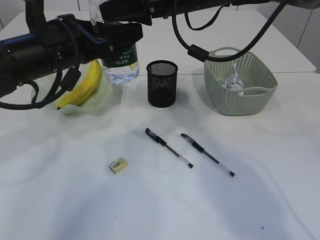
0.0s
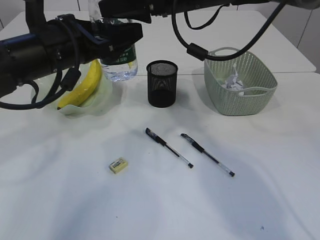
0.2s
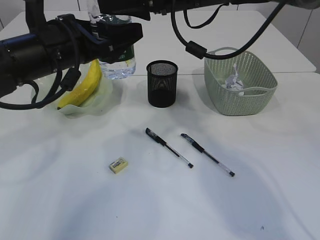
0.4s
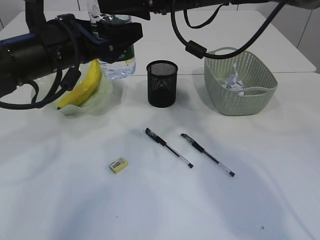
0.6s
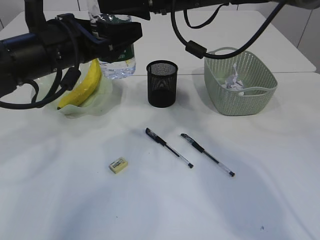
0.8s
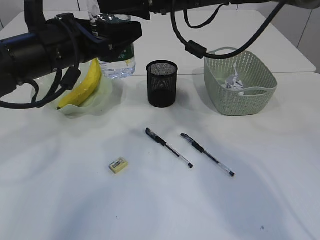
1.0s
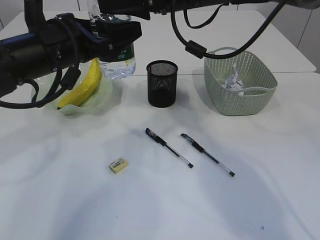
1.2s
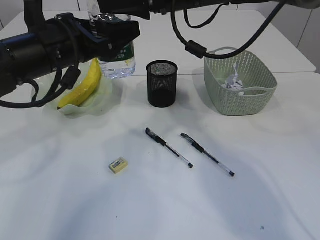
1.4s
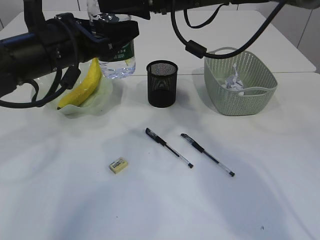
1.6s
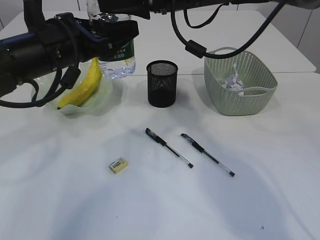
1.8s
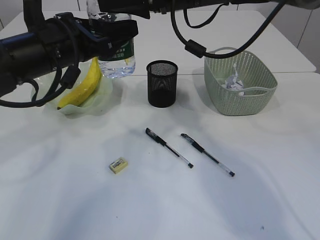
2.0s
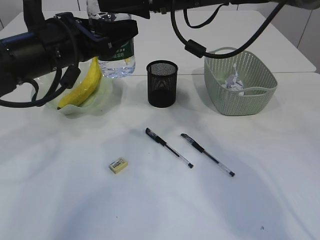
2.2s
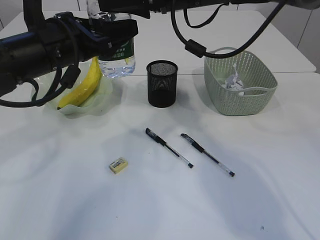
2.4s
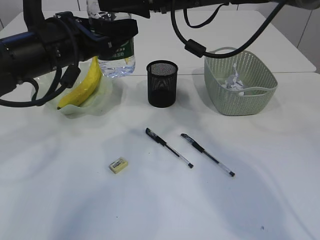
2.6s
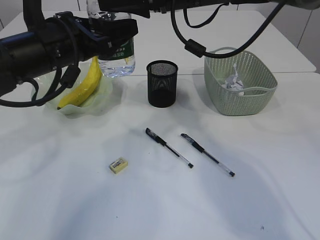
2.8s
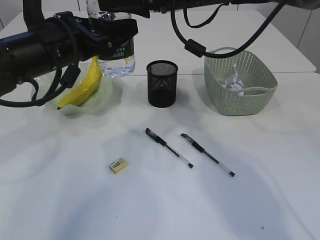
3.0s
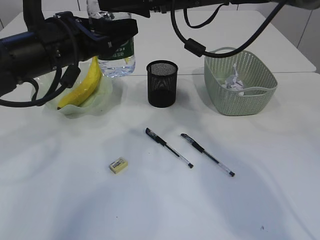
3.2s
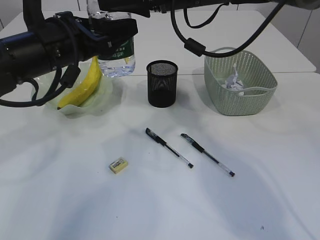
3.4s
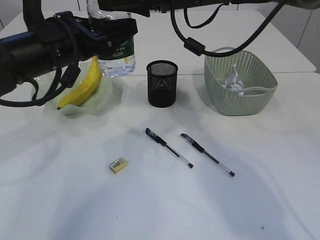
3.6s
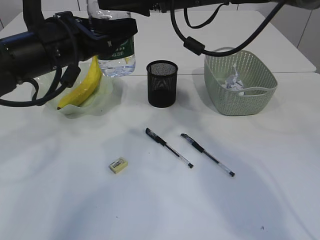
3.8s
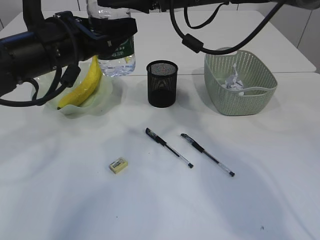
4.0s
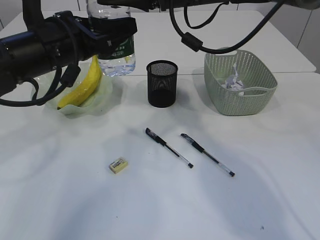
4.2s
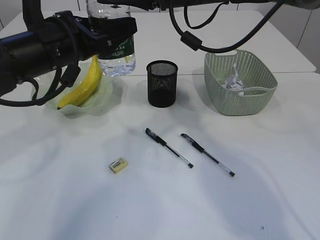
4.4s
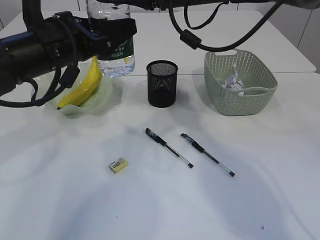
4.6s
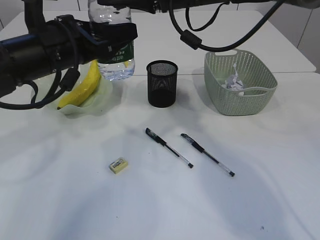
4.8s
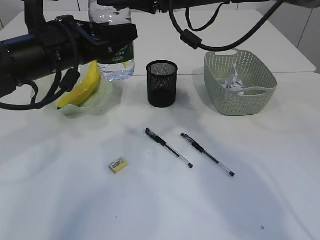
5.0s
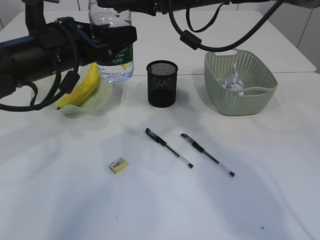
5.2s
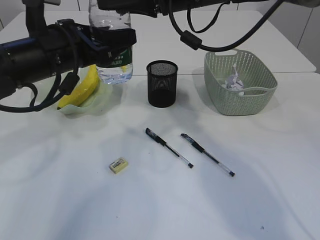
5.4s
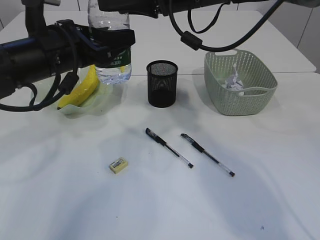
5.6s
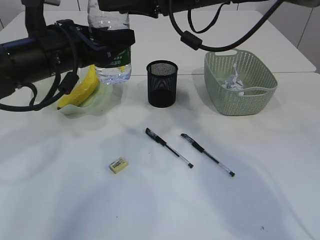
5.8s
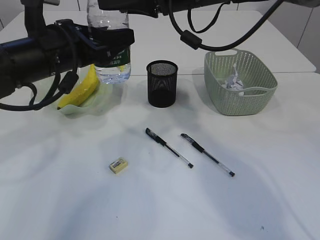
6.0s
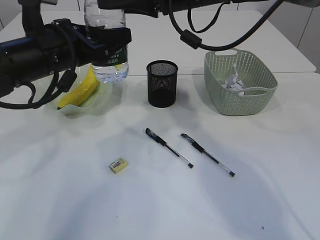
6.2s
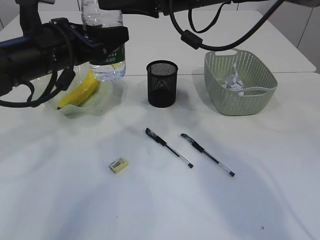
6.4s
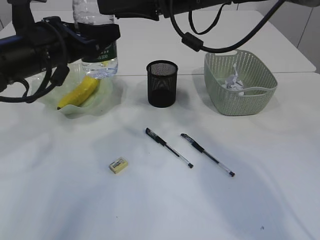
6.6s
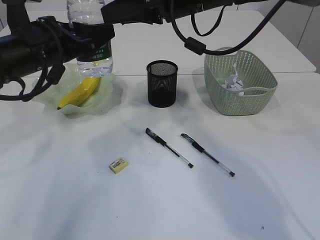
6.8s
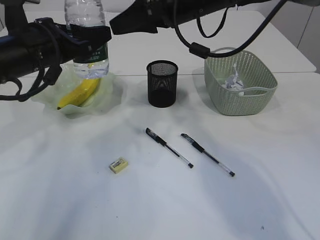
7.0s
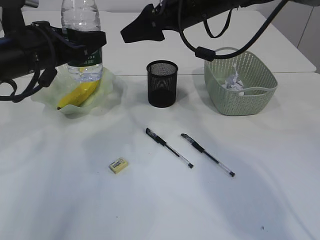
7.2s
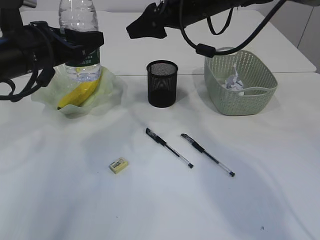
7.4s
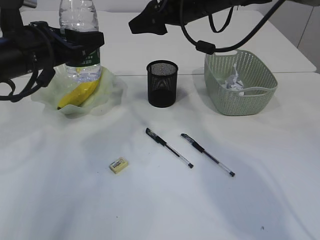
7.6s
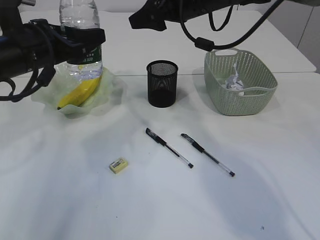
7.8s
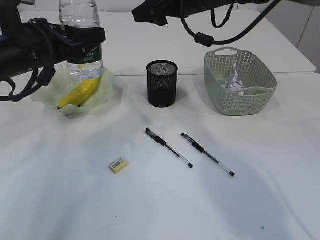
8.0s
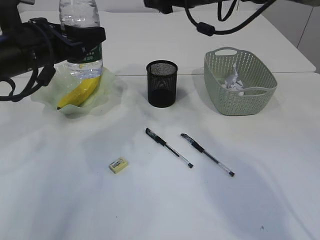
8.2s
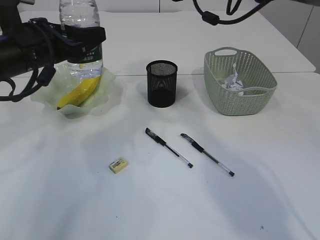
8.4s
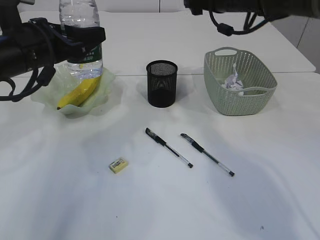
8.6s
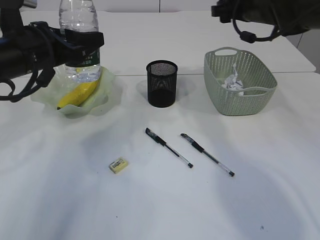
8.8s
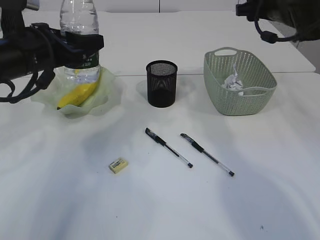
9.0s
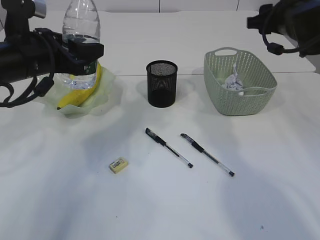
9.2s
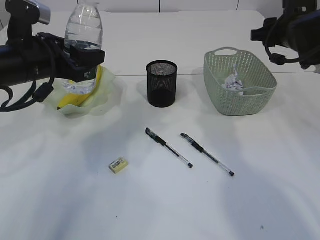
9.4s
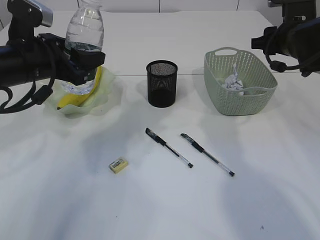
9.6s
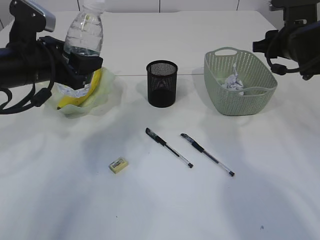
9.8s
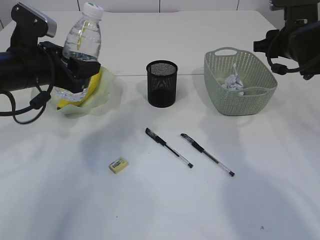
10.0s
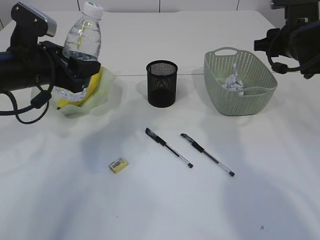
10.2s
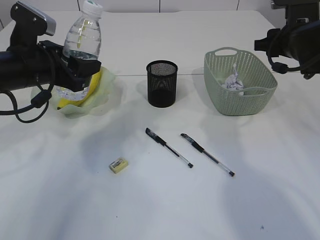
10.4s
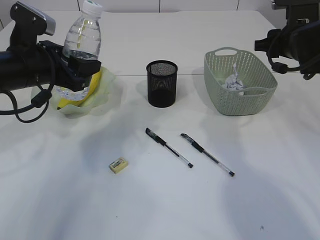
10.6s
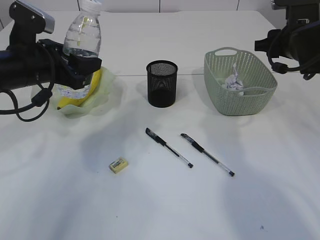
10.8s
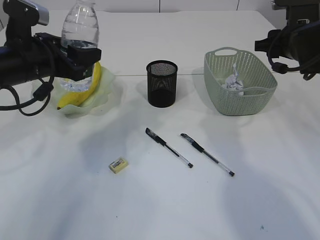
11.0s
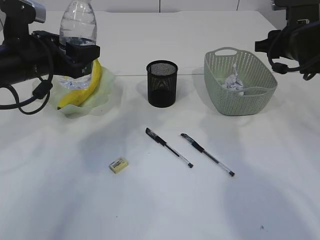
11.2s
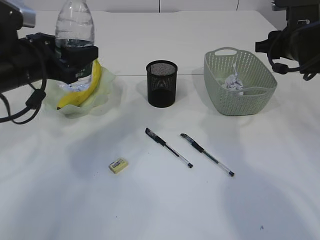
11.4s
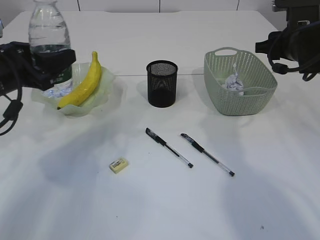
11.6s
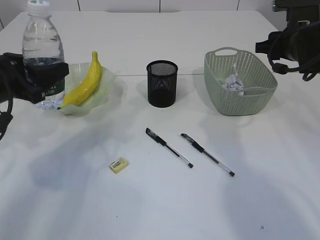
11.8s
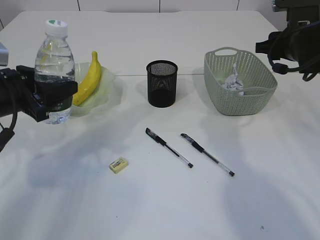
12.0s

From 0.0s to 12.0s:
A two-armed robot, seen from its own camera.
Step, from 0.0s to 6.8s: transfer the bottle to the left arm.
From 0.0s to 3.0s: Both grippers stay put.
From 3.0s to 6.0s: The grippers stay close to where they were, moving slightly.
From 7.6s to 9.0s: The right gripper is displaced to the right by roughly 15 cm.
From 9.0s to 10.4s: The right gripper travels downward by roughly 5 cm.
From 10.4s to 12.0s: The left gripper moves to the left, some 5 cm.

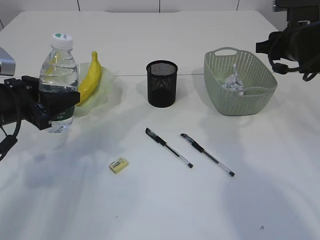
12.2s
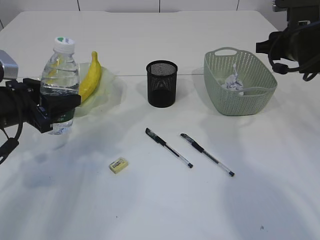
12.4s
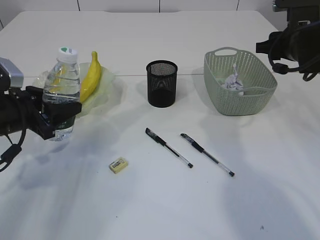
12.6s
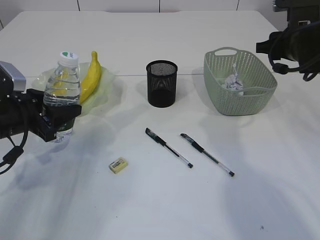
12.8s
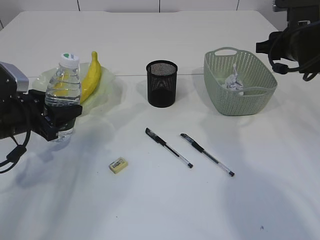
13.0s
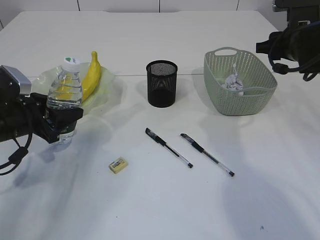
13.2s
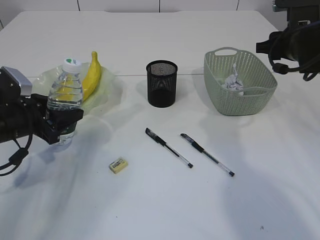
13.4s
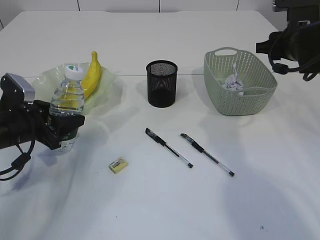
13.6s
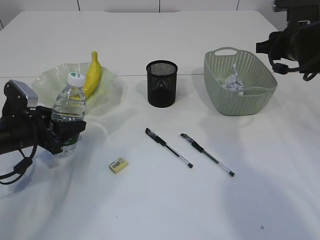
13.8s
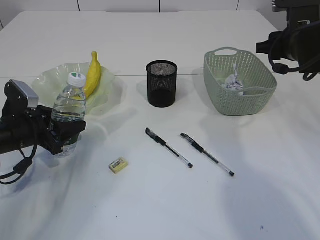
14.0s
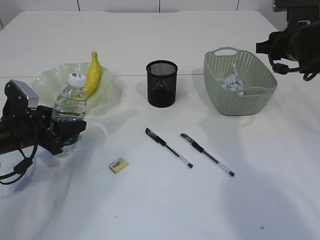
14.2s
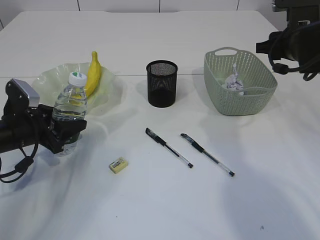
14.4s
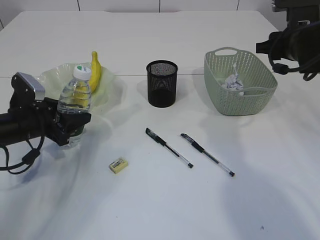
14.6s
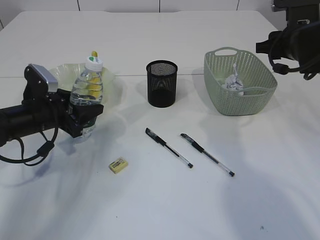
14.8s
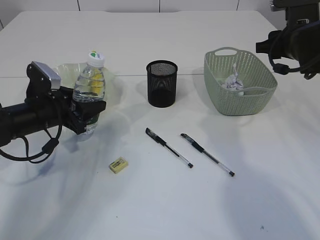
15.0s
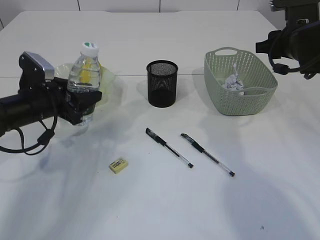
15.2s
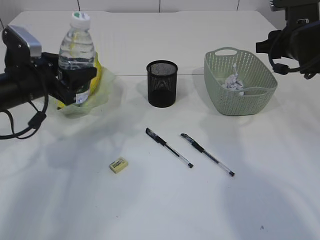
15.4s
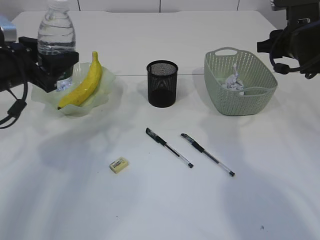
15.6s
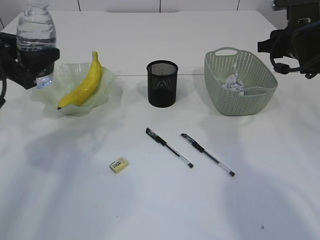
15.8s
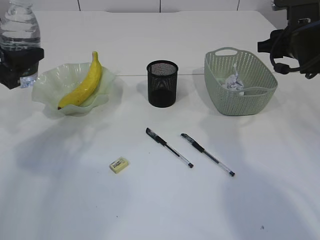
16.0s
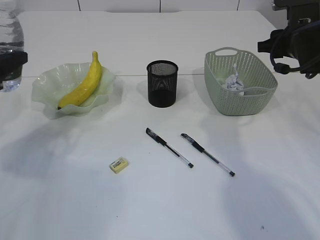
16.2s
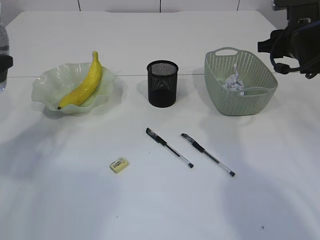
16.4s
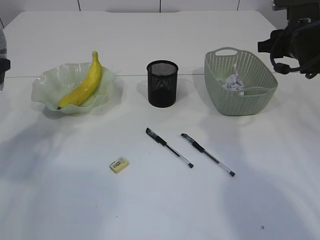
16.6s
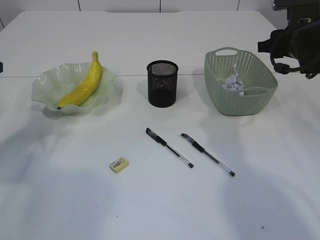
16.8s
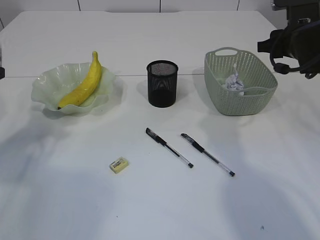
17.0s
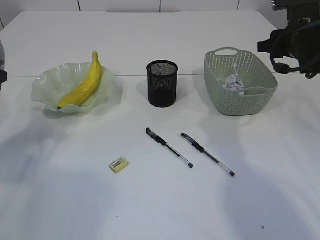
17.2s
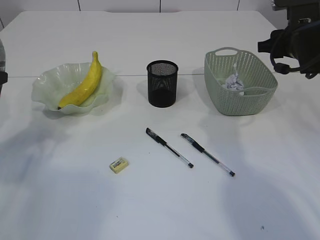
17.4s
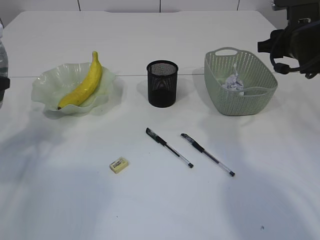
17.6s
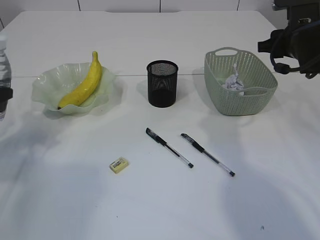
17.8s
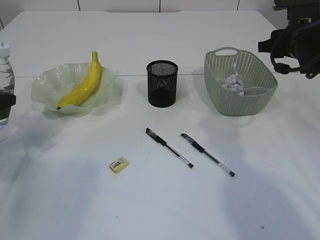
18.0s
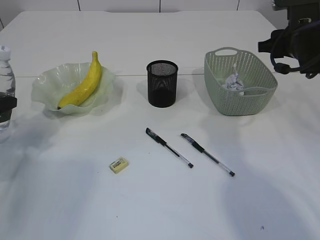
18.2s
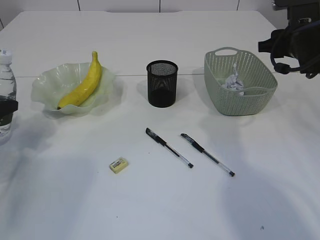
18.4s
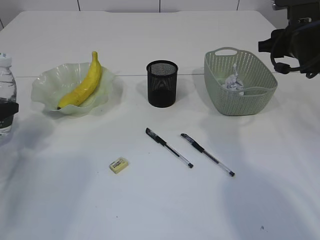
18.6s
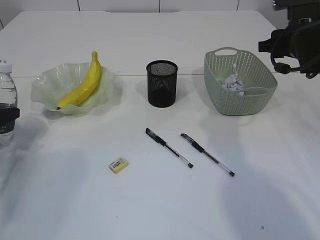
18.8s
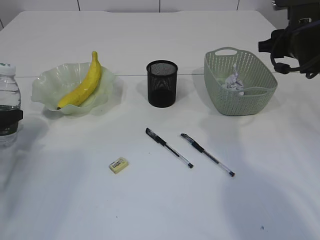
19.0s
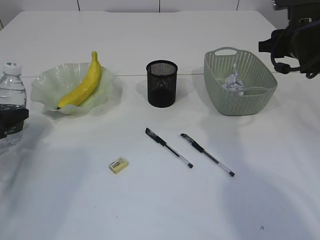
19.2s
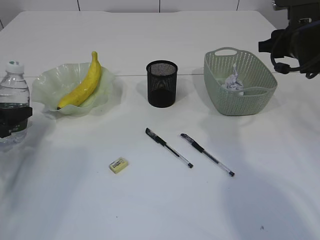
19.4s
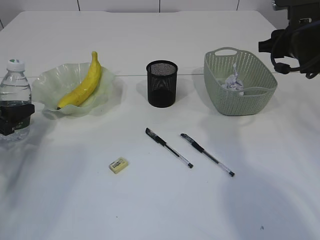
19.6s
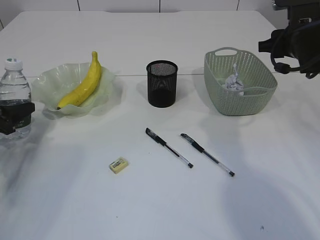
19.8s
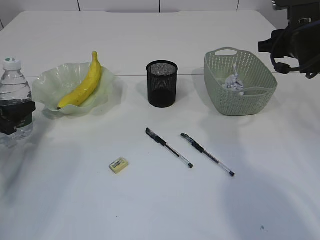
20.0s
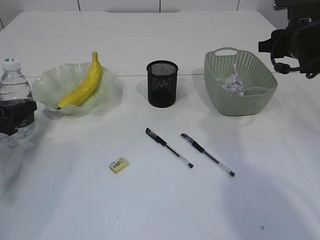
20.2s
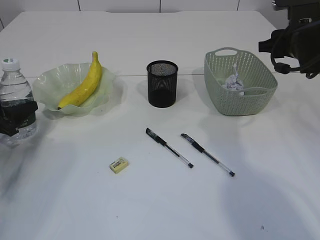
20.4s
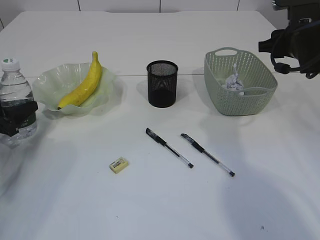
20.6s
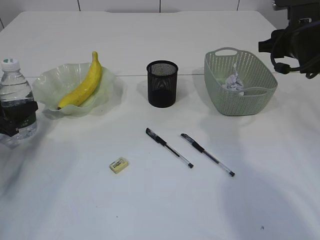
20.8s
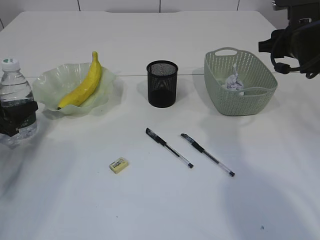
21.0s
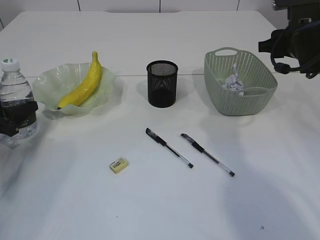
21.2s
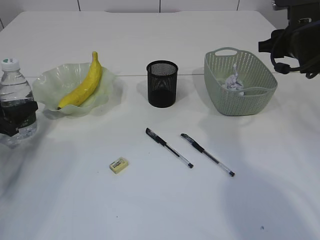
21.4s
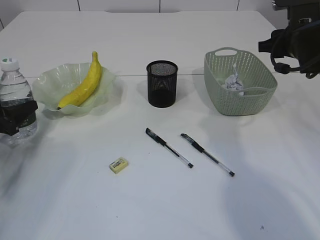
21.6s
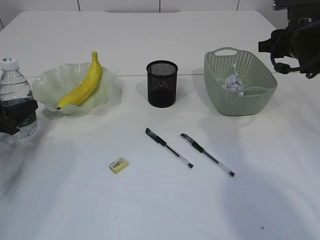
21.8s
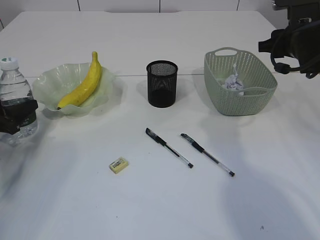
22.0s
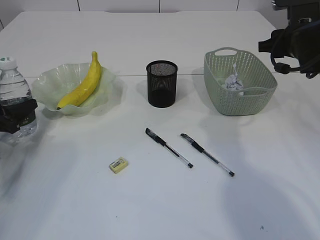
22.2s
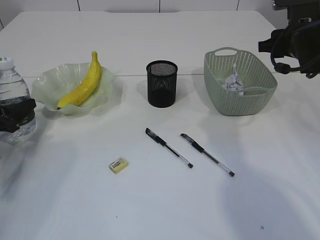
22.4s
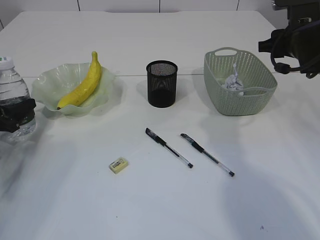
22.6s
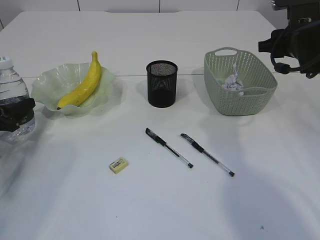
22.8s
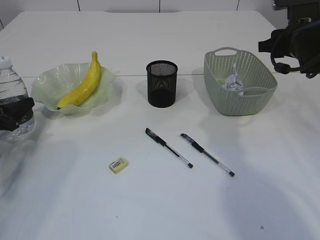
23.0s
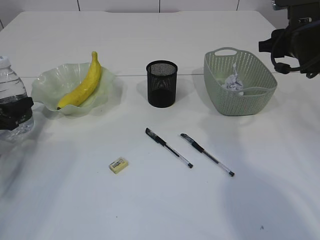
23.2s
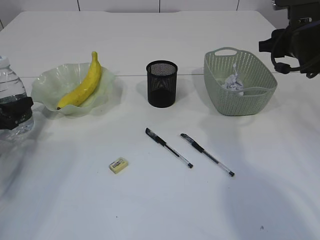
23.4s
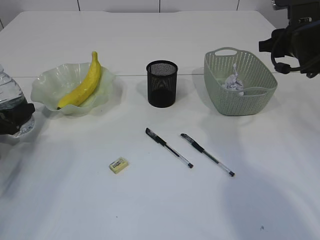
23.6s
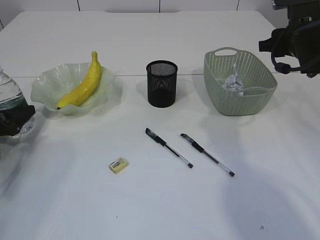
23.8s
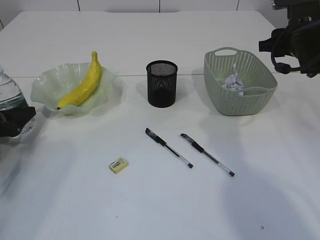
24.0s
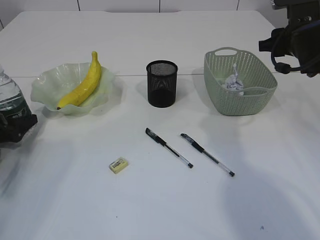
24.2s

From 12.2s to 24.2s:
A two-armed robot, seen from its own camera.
From 12.2s to 13.8s: The left gripper shifts about 10 cm downward.
From 13.8s to 15.2s: The left gripper ends up roughly 5 cm from where it was.
From 15.2s to 16.6s: The left gripper shifts some 15 cm to the left and upward.
From 16.6s to 18.2s: The left gripper travels downward by some 5 cm.
From 18.2s to 19.8s: The left gripper moves downward, about 5 cm.
From 22.6s to 24.2s: The grippers stay close to where they were, moving slightly.
